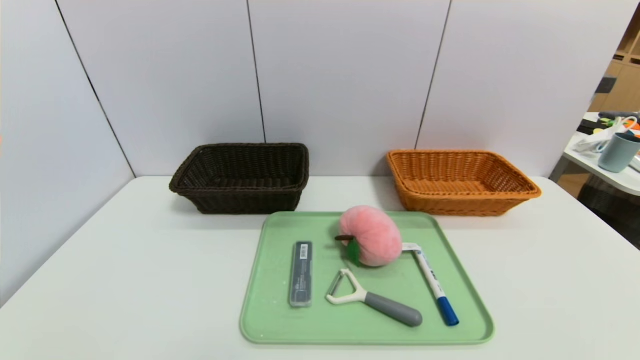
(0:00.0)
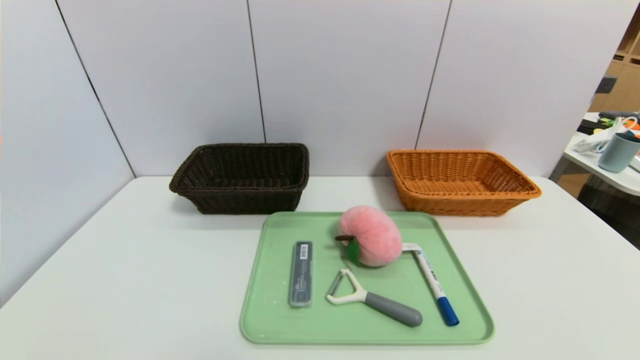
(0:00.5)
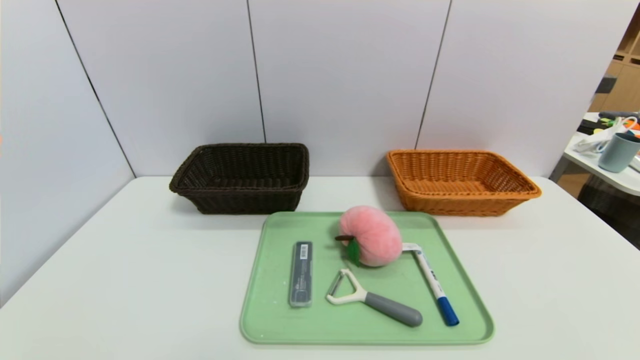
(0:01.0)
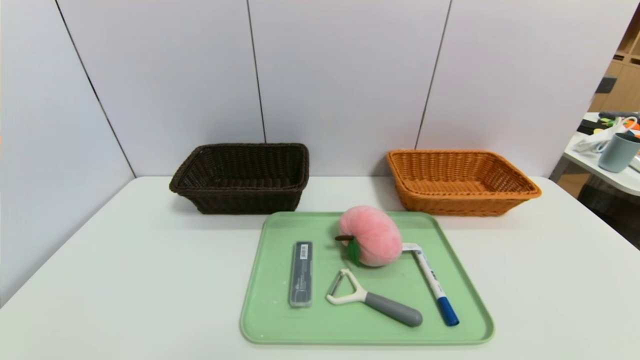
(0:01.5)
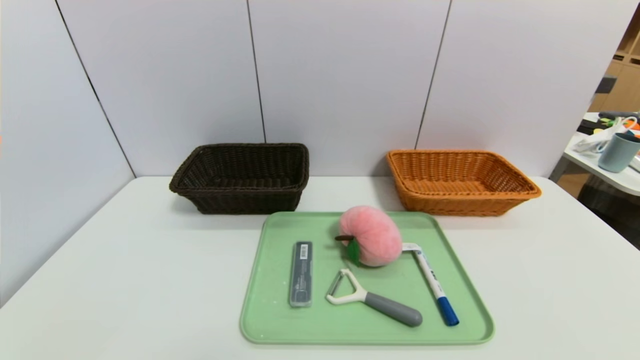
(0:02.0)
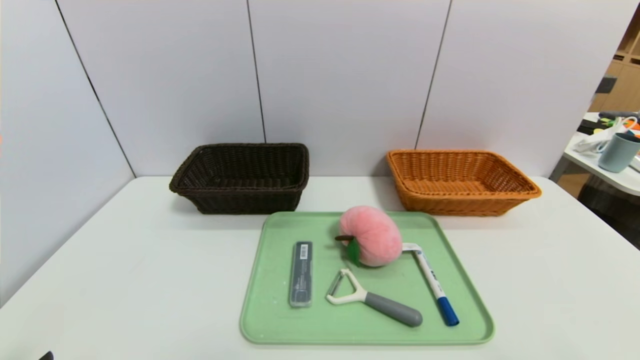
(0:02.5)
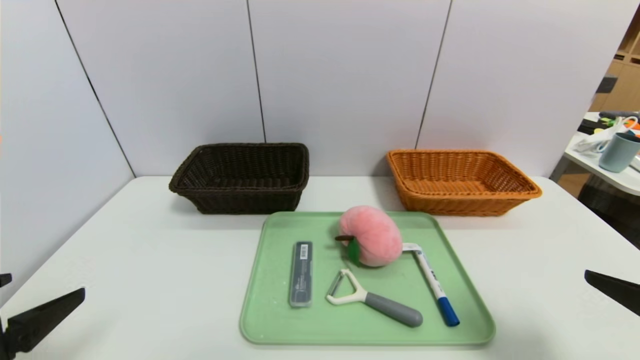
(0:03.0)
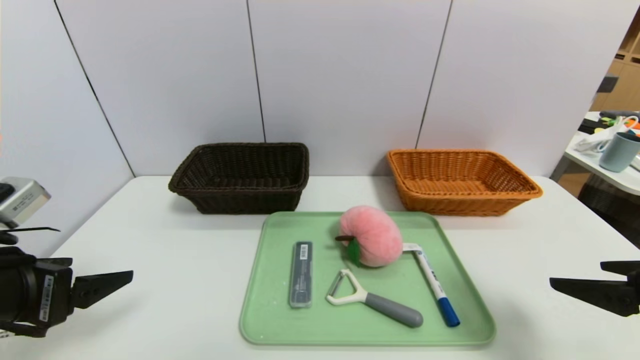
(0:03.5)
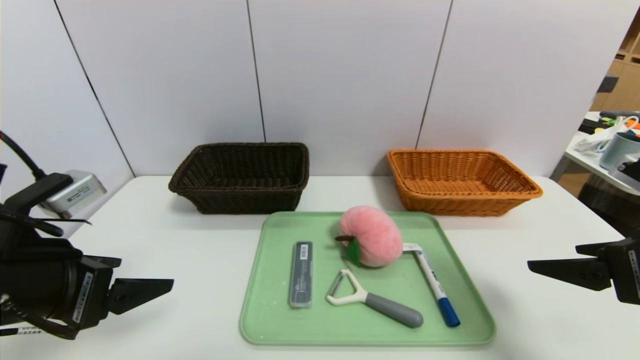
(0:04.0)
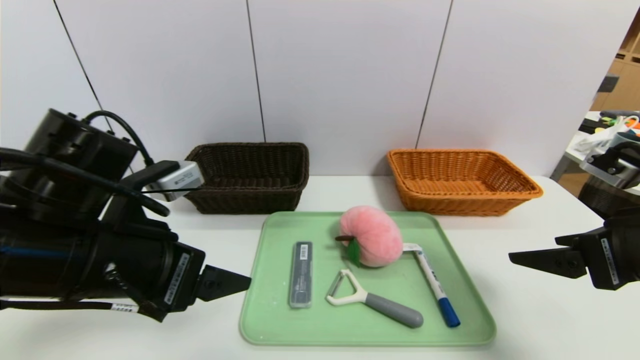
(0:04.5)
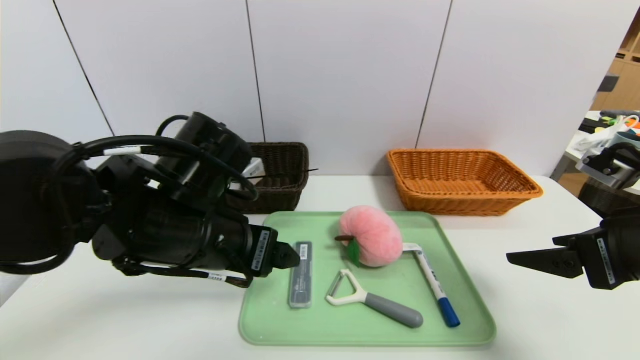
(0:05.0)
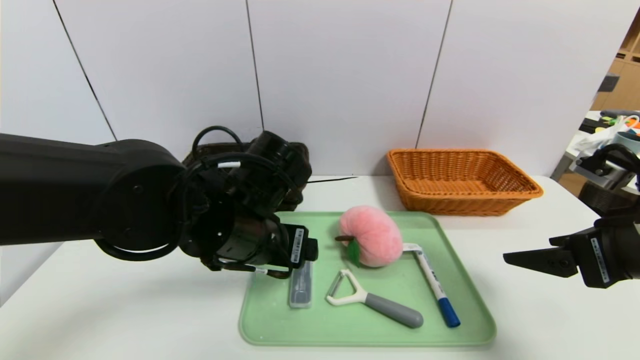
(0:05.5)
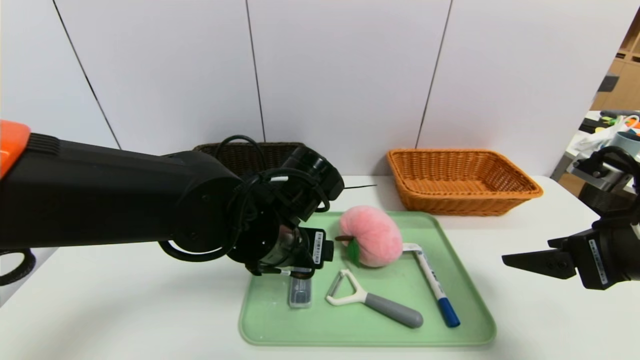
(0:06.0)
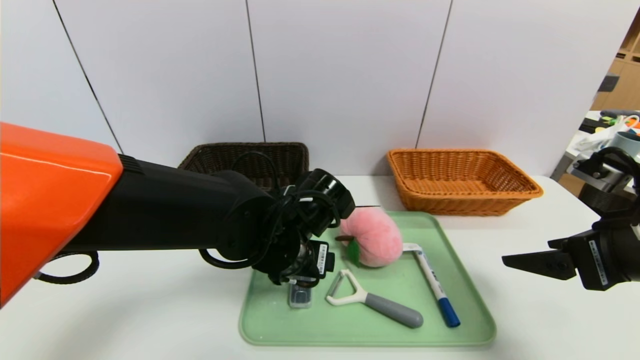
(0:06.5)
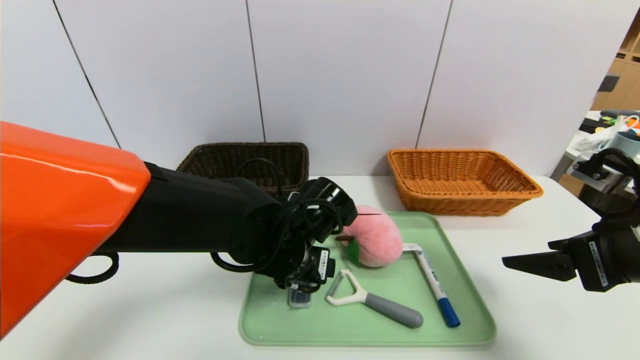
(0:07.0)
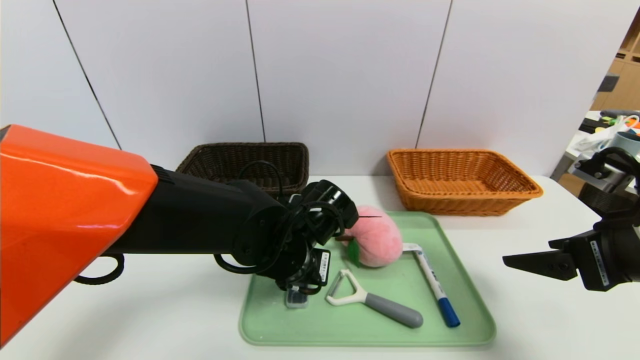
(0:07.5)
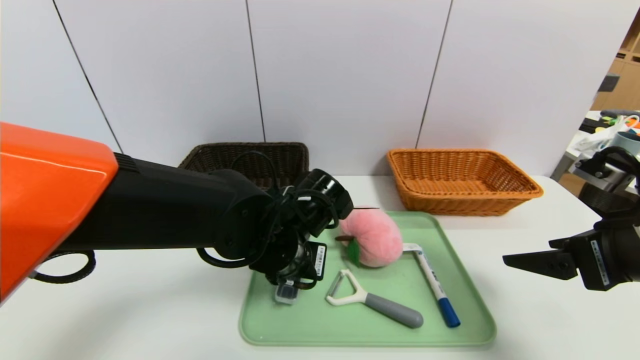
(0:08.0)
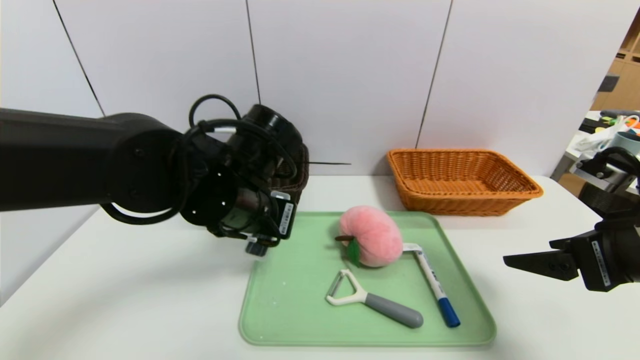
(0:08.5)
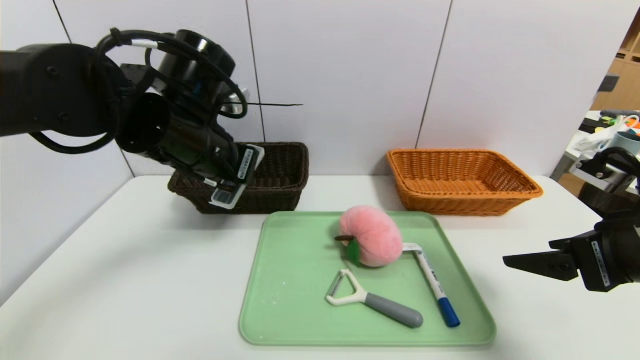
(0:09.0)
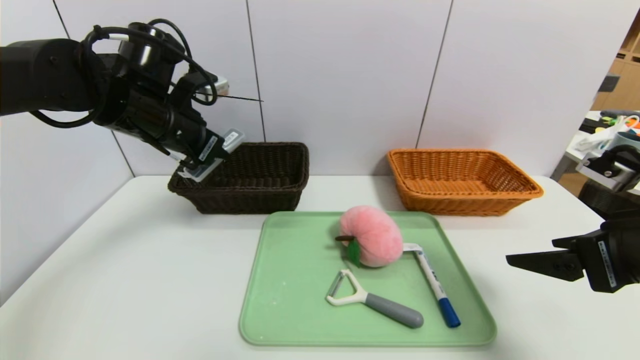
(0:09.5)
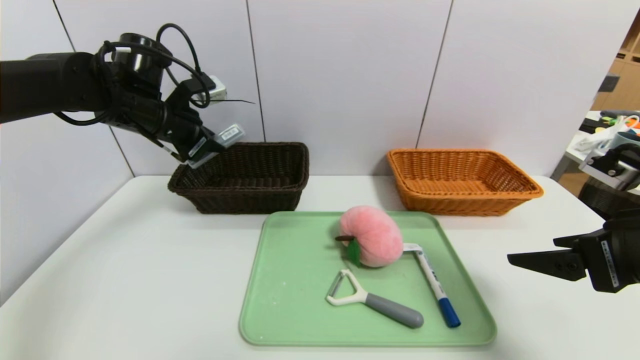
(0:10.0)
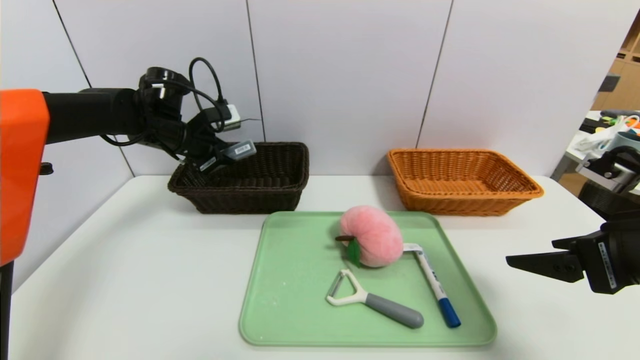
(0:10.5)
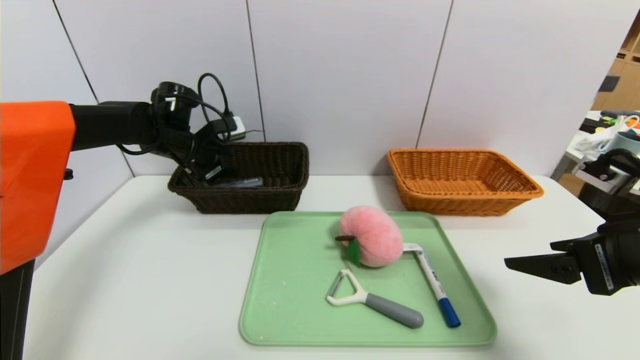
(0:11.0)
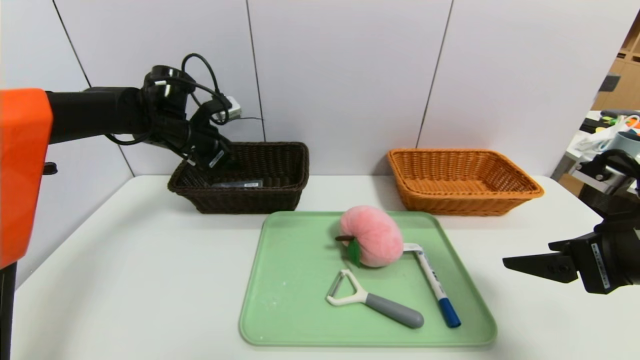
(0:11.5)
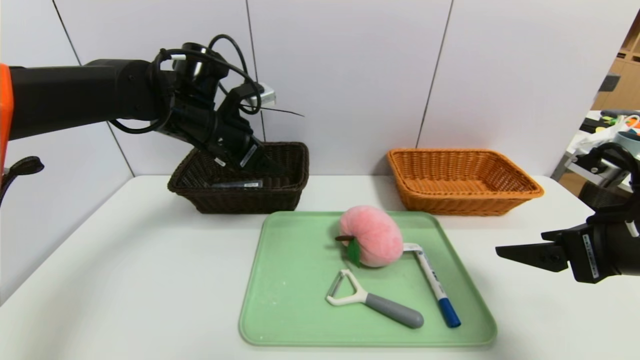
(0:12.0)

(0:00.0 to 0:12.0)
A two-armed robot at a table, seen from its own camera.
Task of the whole recording: place the food in the right basket with the right gripper, and place the non food items in the left basket with the left gripper.
0:02.0 - 0:04.0: Both grippers move forward and upward, about 20 cm.
0:04.0 - 0:06.0: The left gripper travels to the right and forward by about 25 cm.
0:06.0 - 0:08.0: The left gripper closes up.
0:08.0 - 0:10.0: The left gripper shifts some 25 cm to the left, forward and upward.
0:10.0 - 0:12.0: The left gripper moves to the right, approximately 10 cm, and opens.

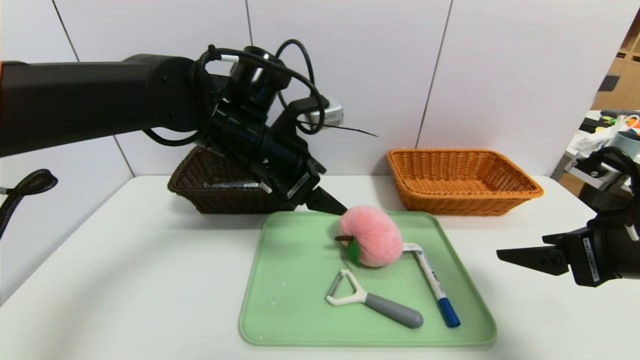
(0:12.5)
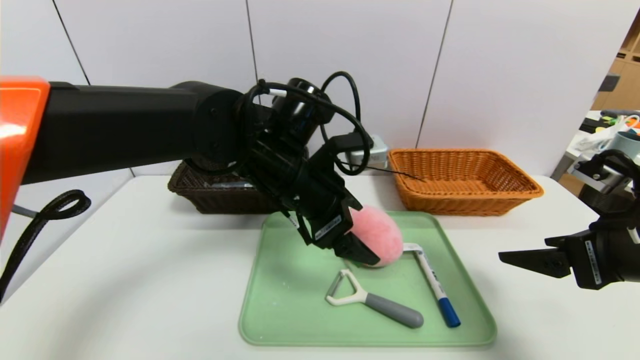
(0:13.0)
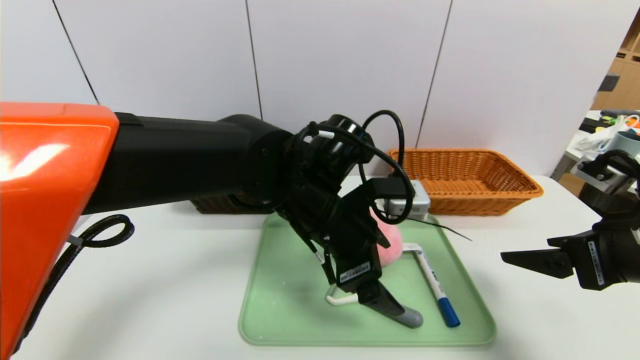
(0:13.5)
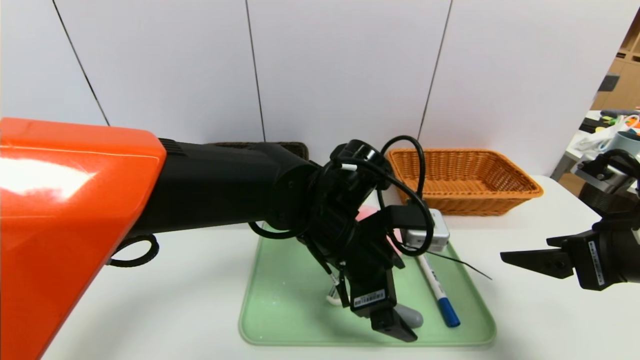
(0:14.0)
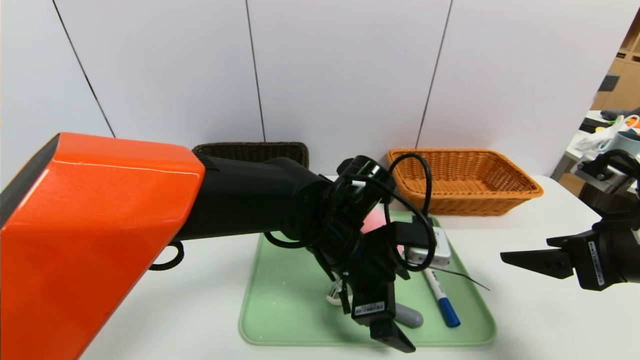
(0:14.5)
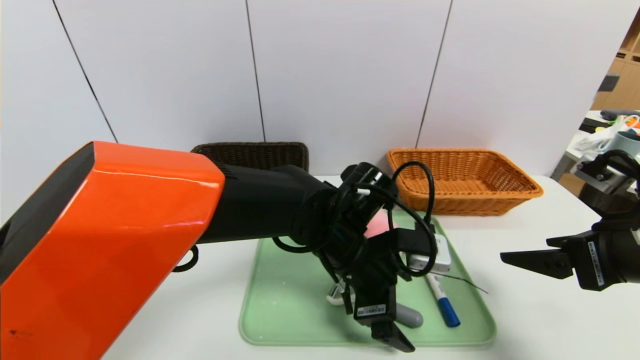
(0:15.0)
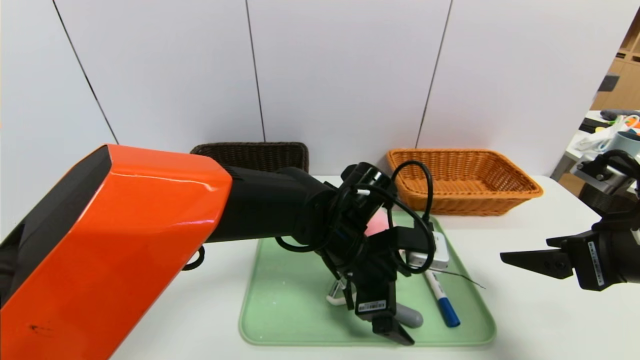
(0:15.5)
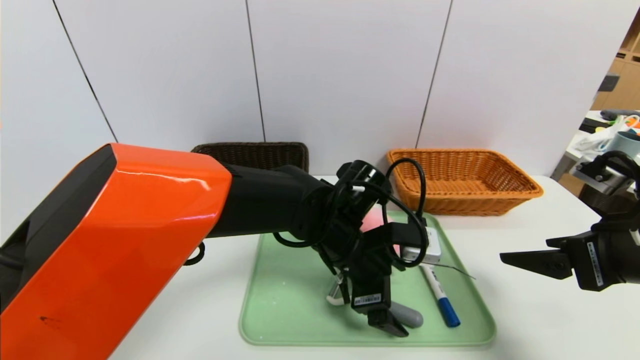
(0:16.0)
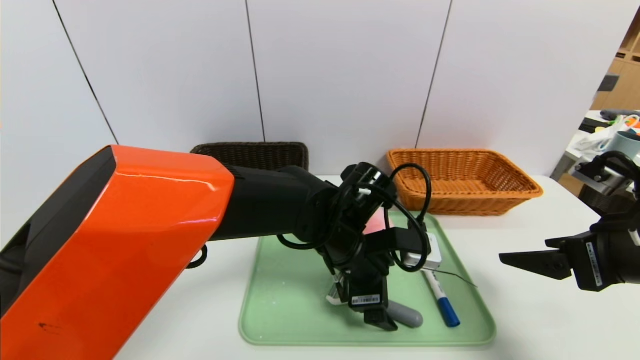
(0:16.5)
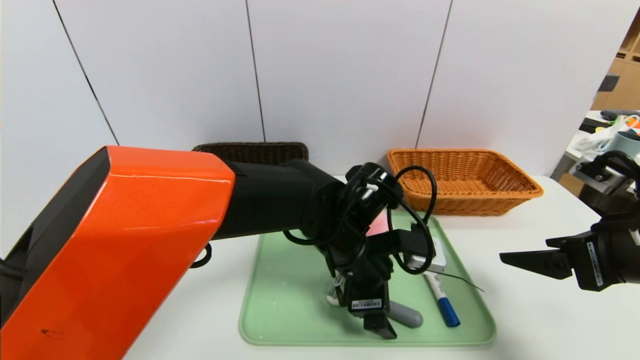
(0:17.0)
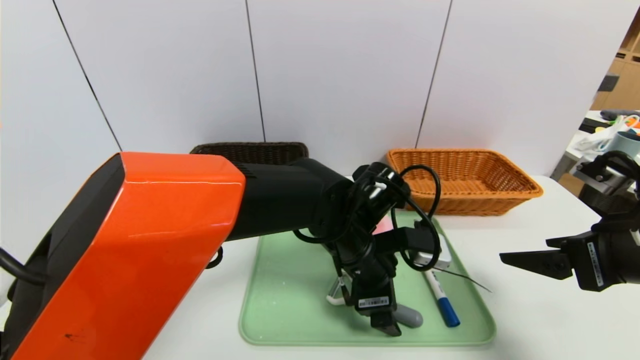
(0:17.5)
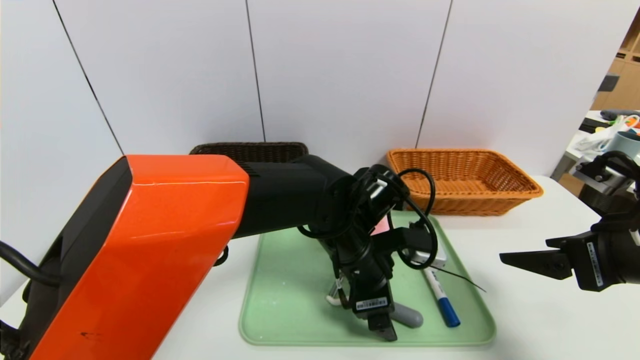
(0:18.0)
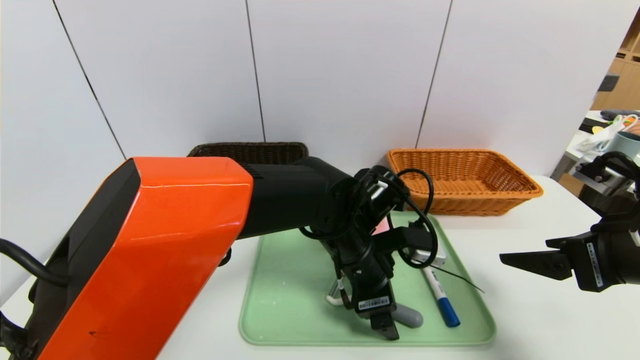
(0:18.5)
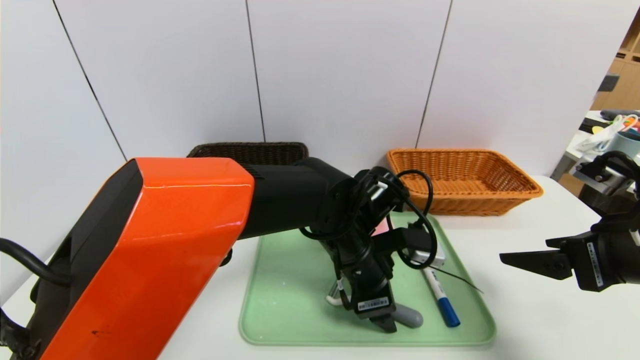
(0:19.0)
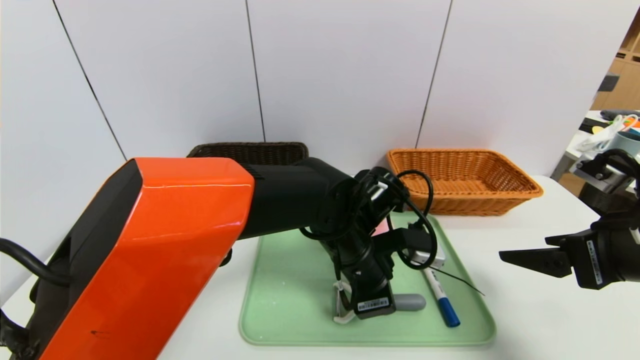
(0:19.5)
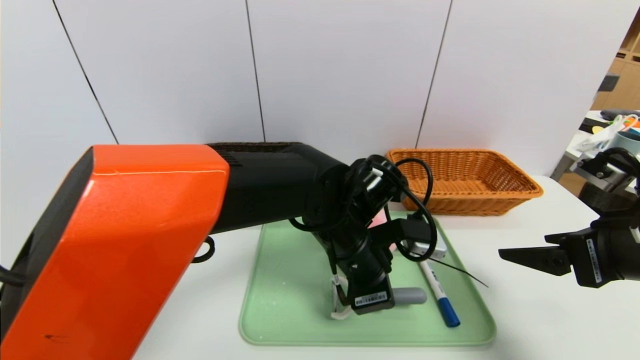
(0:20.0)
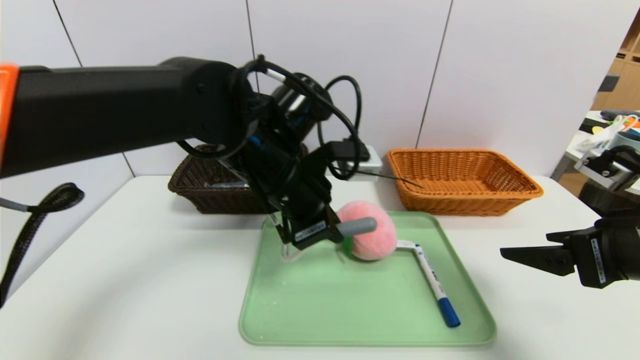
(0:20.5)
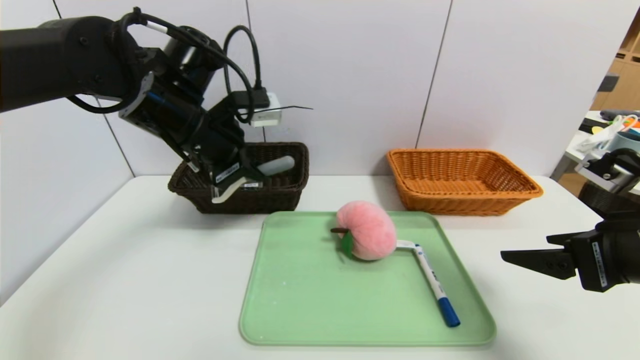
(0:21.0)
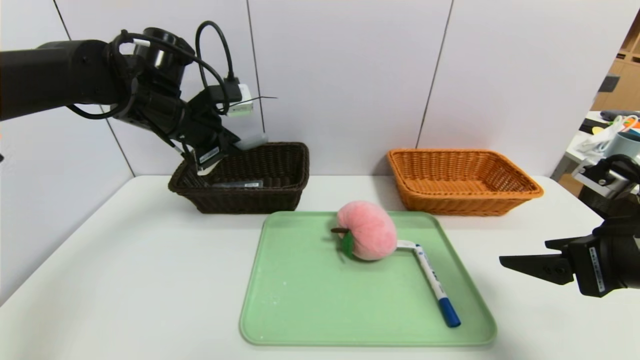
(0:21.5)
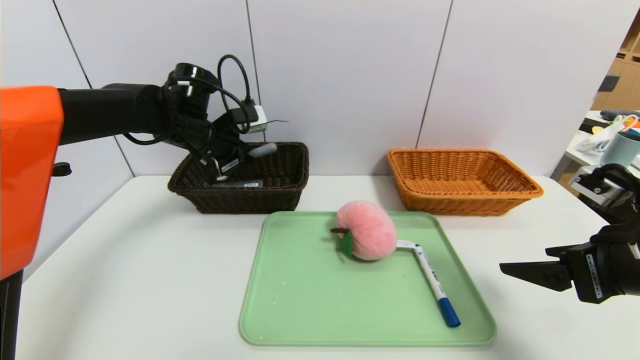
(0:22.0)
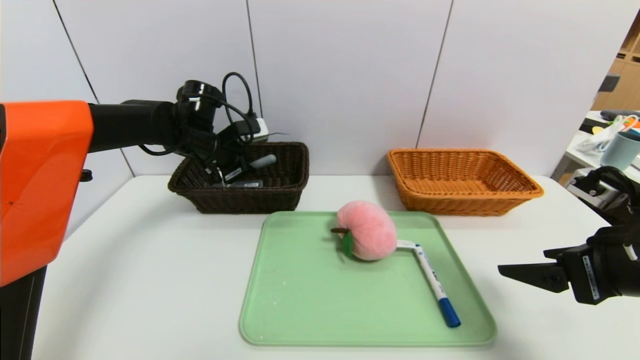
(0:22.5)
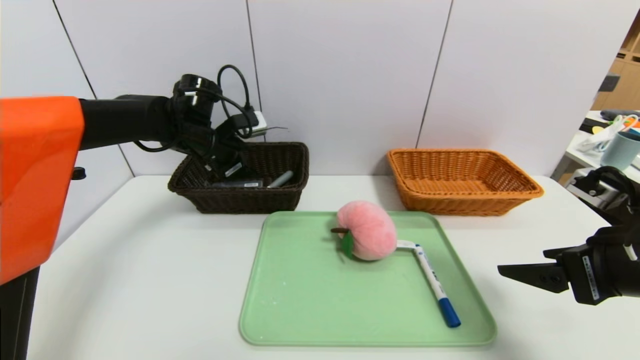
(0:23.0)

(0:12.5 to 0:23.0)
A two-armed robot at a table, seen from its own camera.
Task of the whole recording: place the food in the right basket with the right gripper, and place the non food items in the left basket with the left gripper.
0:12.5 - 0:14.5: The left gripper heads to the right, downward and backward, covering approximately 15 cm.
0:14.5 - 0:19.0: The grippers move only a little.
0:19.0 - 0:21.0: The left gripper shifts some 25 cm to the left and upward, and closes its fingers.
0:21.0 - 0:23.0: The left gripper is displaced forward and downward by approximately 10 cm, and opens.
